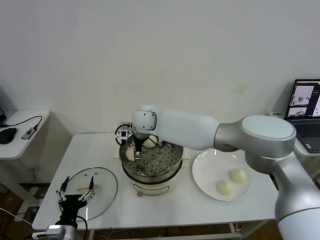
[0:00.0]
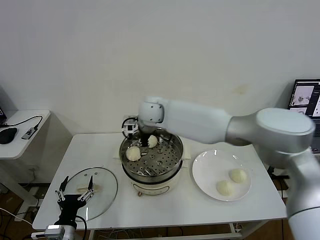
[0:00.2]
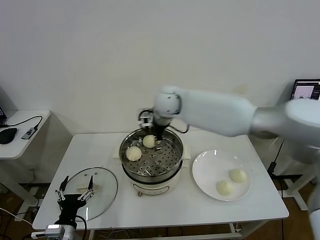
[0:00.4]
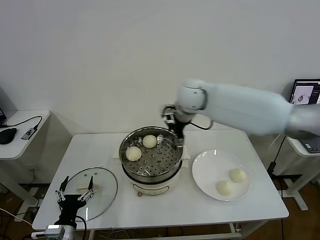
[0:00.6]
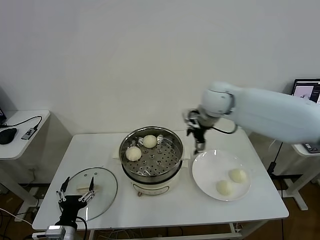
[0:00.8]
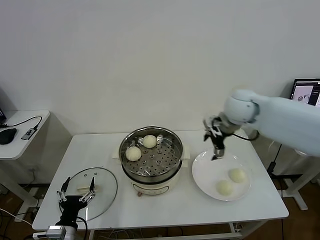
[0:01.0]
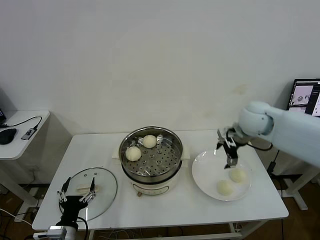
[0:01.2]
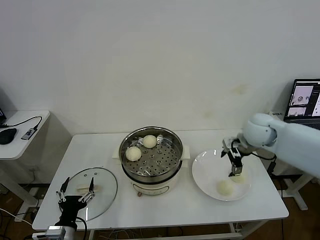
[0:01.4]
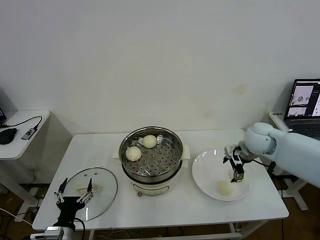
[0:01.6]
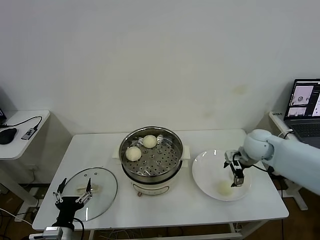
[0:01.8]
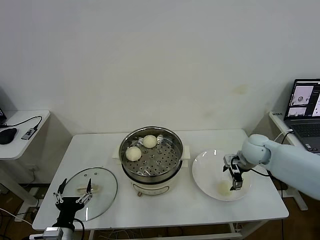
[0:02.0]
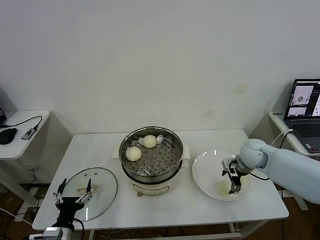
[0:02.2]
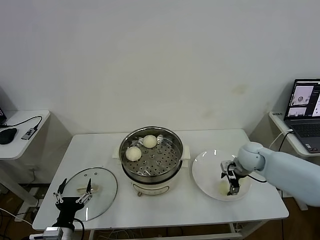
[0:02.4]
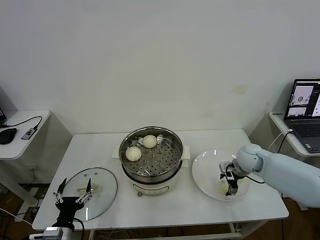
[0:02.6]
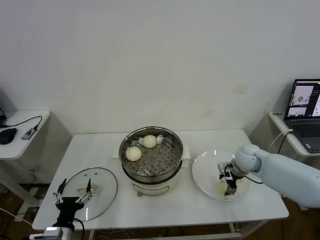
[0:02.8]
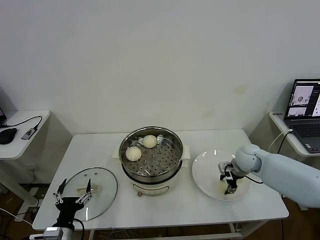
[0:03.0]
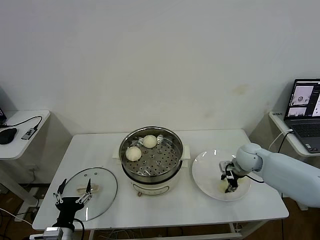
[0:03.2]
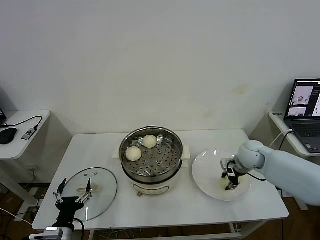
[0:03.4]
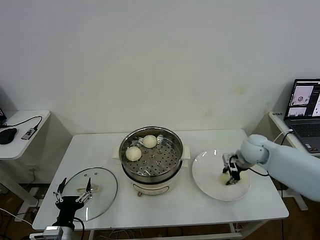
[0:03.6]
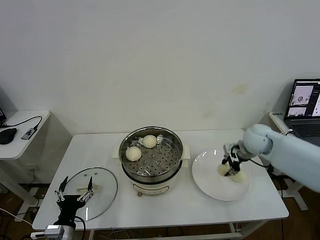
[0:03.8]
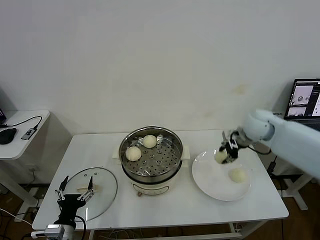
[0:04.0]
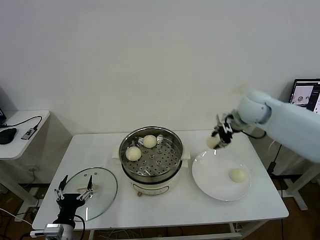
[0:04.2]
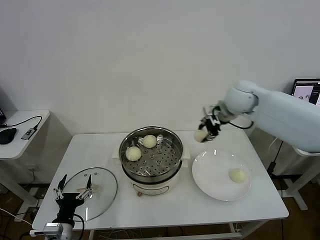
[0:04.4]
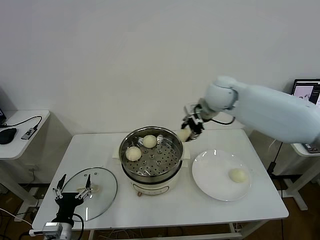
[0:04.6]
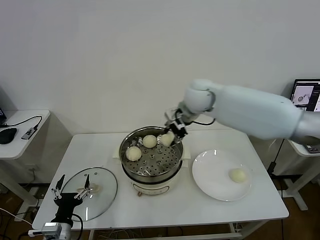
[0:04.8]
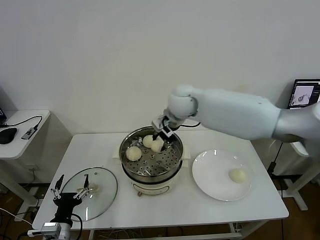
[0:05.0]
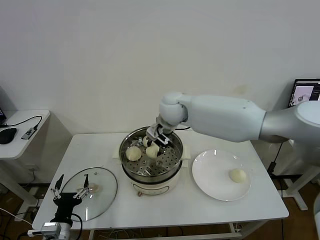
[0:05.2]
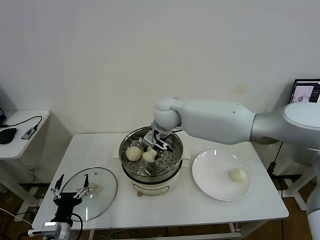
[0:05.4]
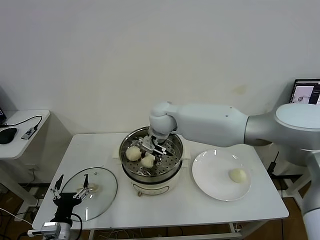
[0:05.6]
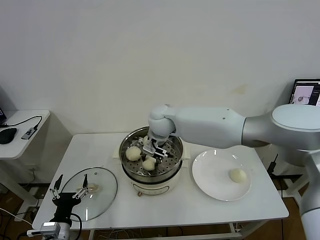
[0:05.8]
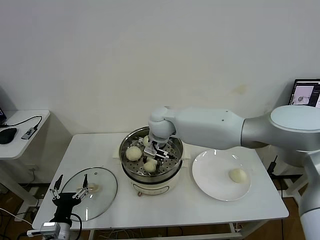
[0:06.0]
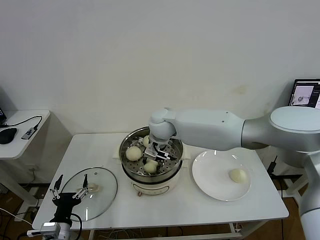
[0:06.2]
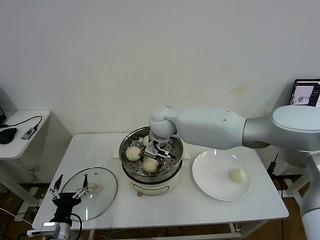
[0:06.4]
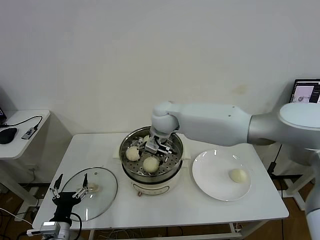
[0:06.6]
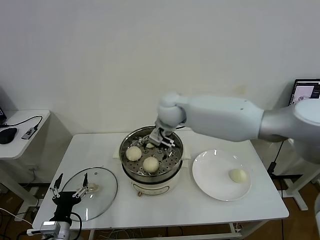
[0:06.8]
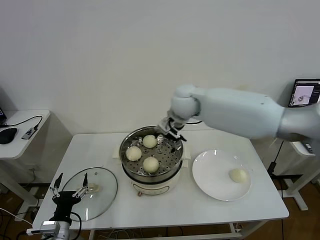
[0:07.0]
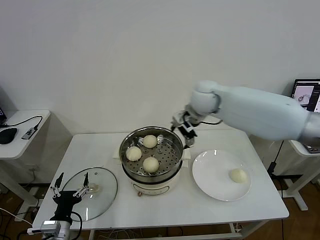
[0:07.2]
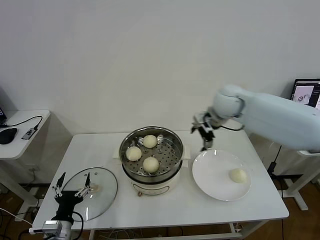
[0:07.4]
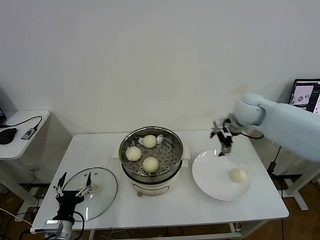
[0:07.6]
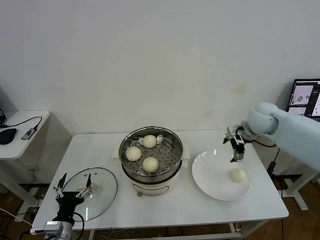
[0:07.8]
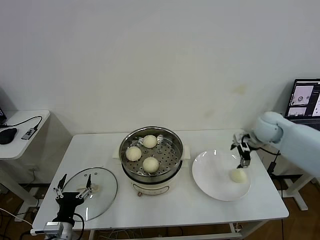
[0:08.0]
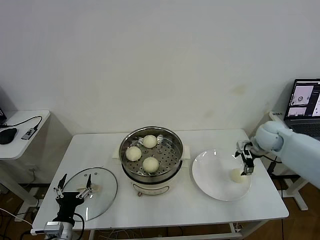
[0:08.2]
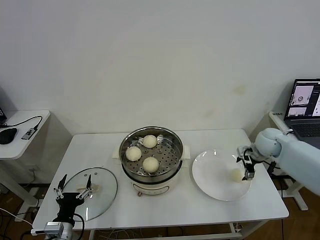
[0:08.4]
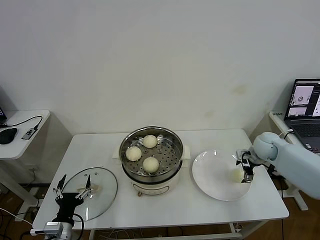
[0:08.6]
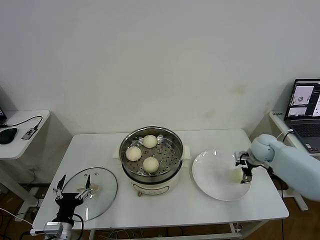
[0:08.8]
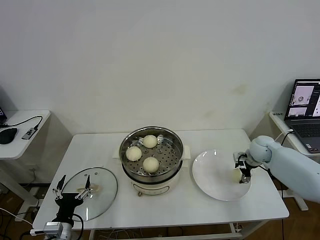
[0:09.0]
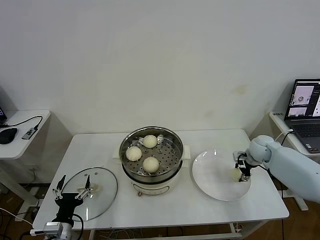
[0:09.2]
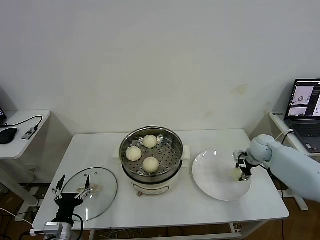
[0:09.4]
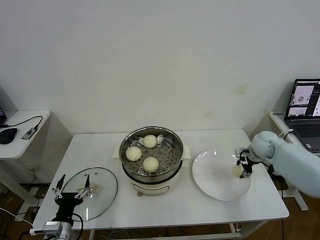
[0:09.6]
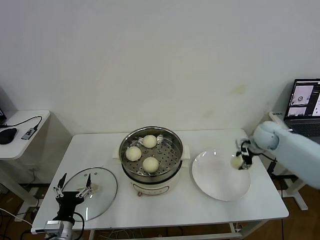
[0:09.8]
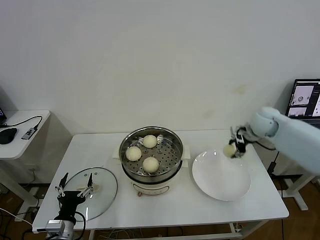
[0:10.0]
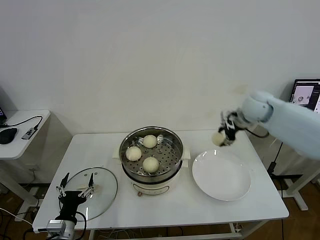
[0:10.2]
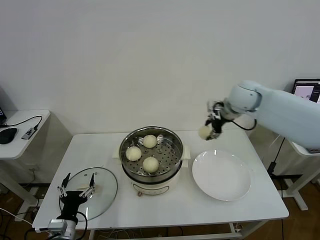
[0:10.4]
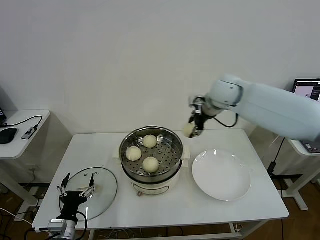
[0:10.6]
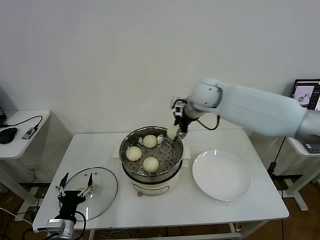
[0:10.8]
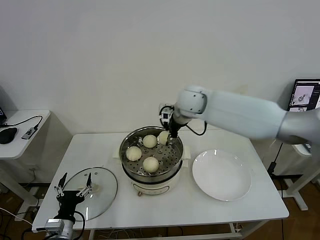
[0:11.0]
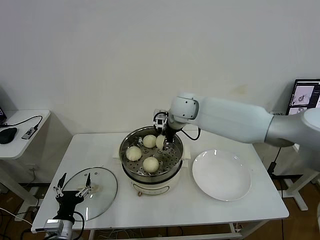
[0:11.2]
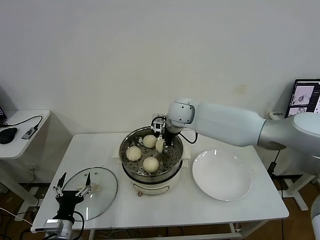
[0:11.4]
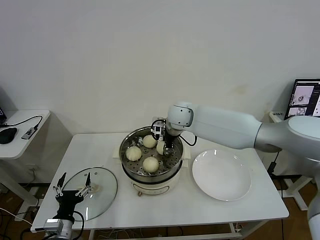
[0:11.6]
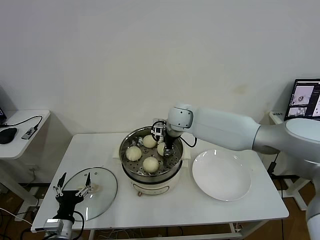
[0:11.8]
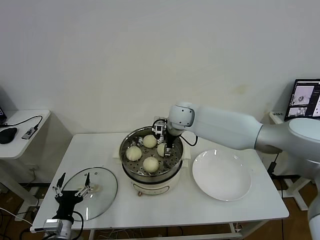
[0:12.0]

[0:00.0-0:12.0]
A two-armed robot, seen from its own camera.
Task of the whole recording: take steamed baozi put them in steamer then cover it.
Step, 0:00.4 to 0:03.2: Grasp the baozi in the plate with right gripper.
Step, 0:03.6 to 0:06.6: Place the baozi on the steamer with right gripper.
Step, 0:06.8 to 0:09.4: Grasp the baozi in the plate with right gripper.
0:00.0 to 0:01.6: The right gripper goes some 35 cm to the right.
0:01.6 to 0:03.0: The right gripper goes roughly 10 cm downward, and closes.
0:03.0 to 0:04.4: The right gripper moves upward and to the left, about 25 cm.
0:04.4 to 0:06.0: The right gripper is displaced to the left and downward by roughly 25 cm.
0:06.0 to 0:07.6: The right gripper moves to the right, approximately 30 cm, and opens.
0:07.6 to 0:09.0: The right gripper is displaced downward and to the right by some 20 cm.
0:09.0 to 0:10.4: The right gripper is displaced upward and to the left by about 25 cm, and closes.
0:10.4 to 0:12.0: The right gripper moves to the left and downward, roughly 20 cm, and opens up.

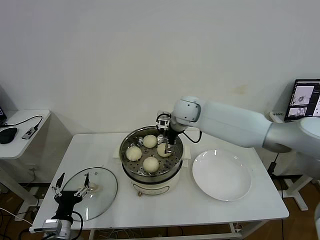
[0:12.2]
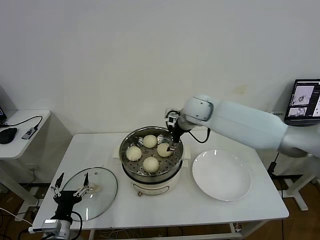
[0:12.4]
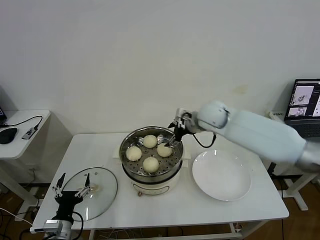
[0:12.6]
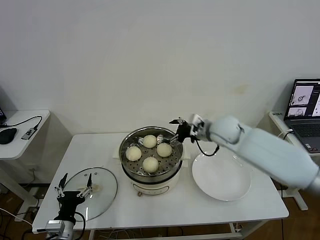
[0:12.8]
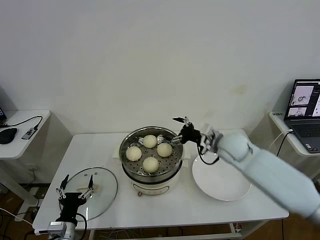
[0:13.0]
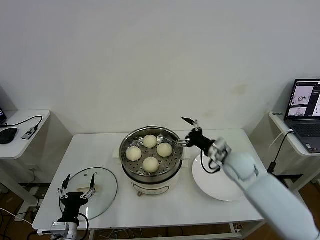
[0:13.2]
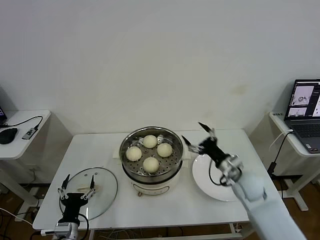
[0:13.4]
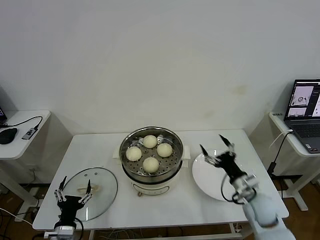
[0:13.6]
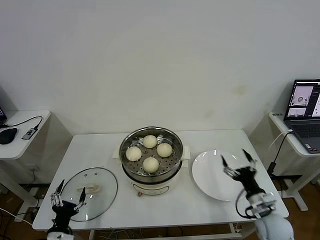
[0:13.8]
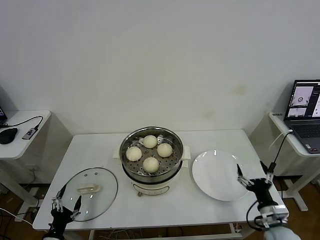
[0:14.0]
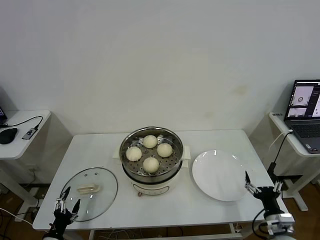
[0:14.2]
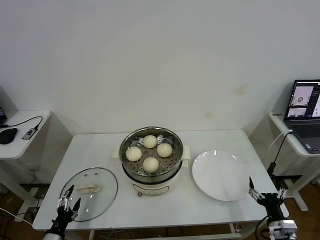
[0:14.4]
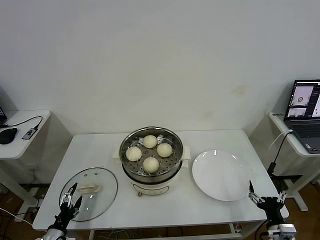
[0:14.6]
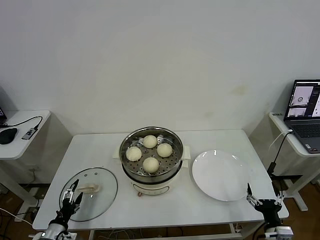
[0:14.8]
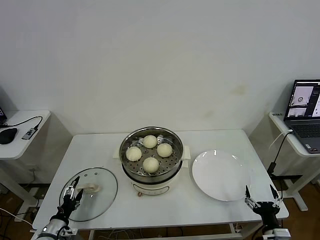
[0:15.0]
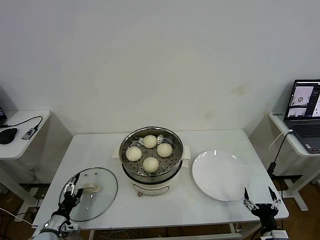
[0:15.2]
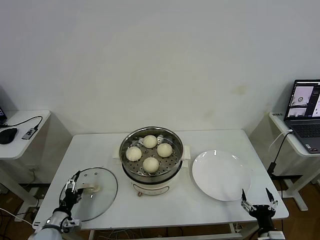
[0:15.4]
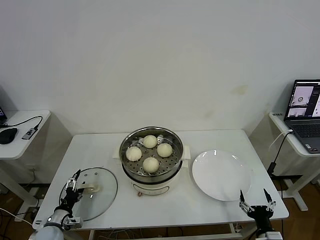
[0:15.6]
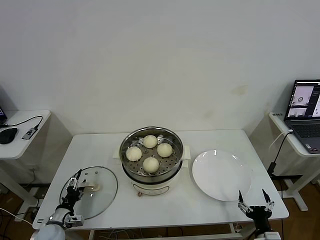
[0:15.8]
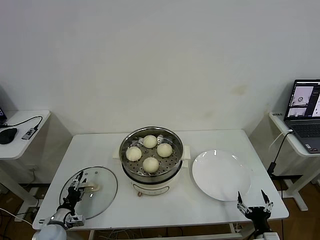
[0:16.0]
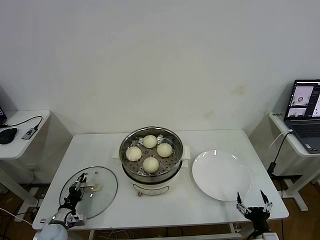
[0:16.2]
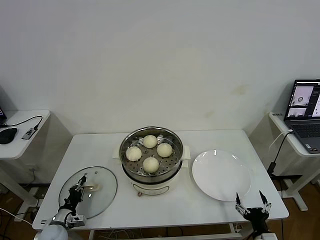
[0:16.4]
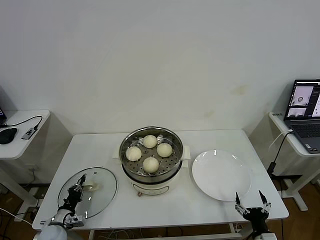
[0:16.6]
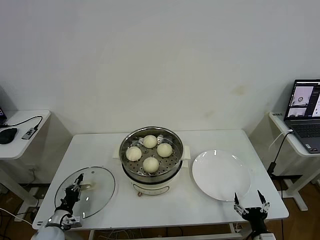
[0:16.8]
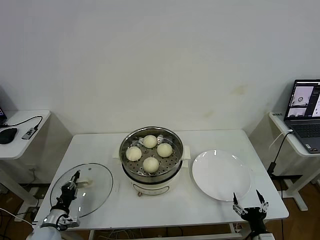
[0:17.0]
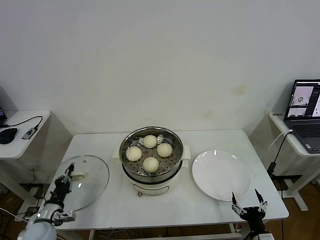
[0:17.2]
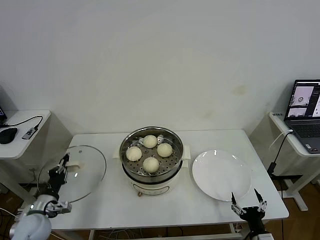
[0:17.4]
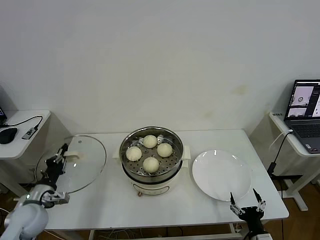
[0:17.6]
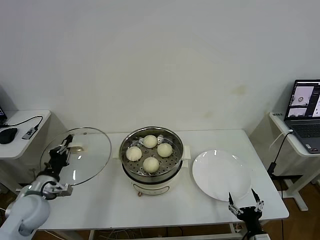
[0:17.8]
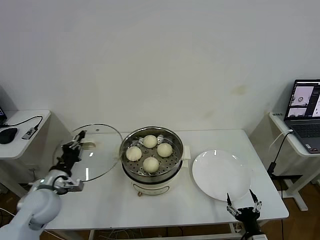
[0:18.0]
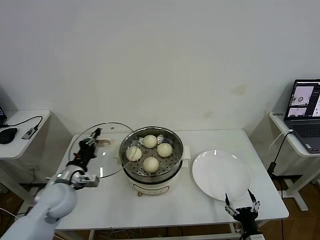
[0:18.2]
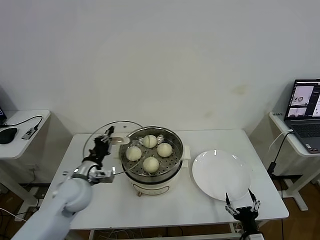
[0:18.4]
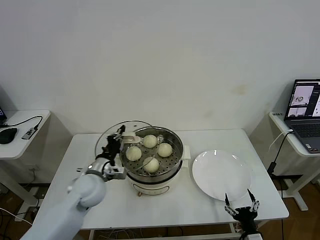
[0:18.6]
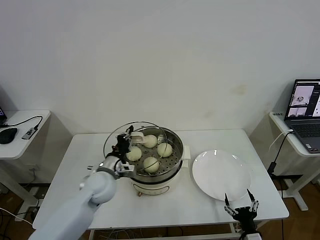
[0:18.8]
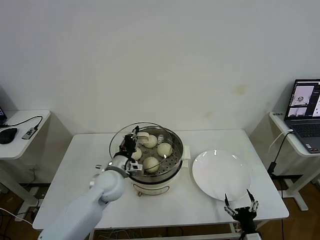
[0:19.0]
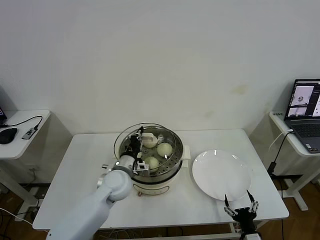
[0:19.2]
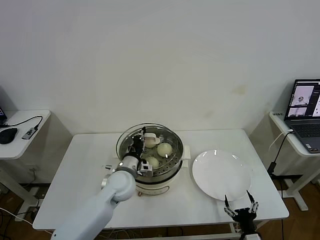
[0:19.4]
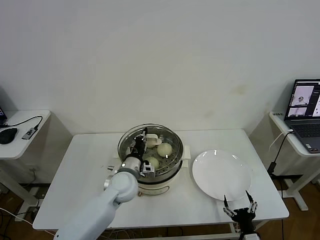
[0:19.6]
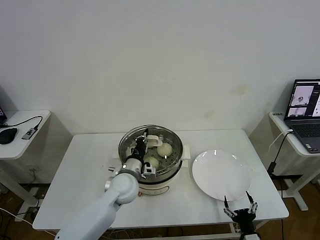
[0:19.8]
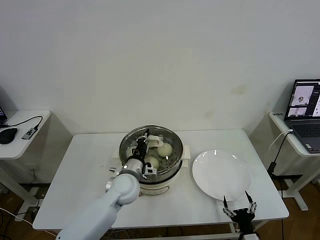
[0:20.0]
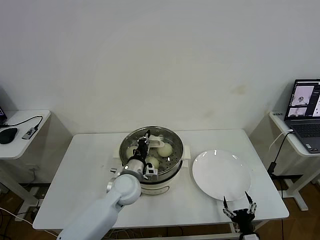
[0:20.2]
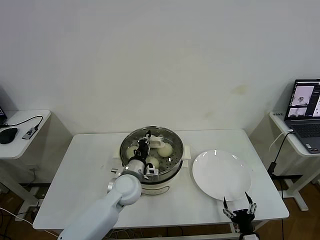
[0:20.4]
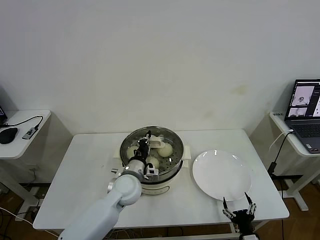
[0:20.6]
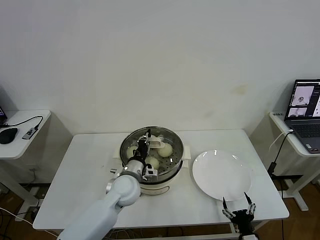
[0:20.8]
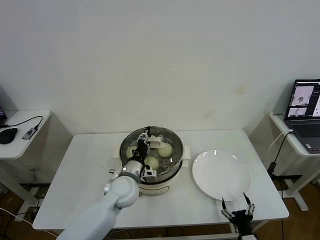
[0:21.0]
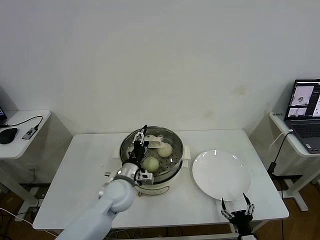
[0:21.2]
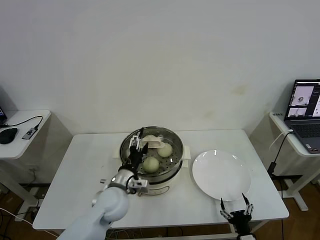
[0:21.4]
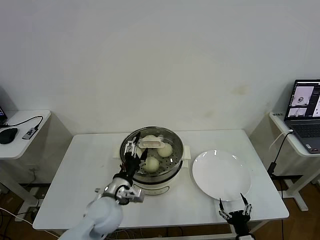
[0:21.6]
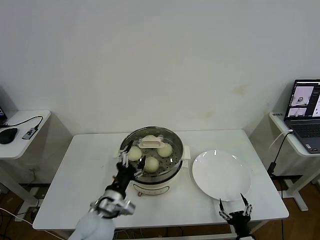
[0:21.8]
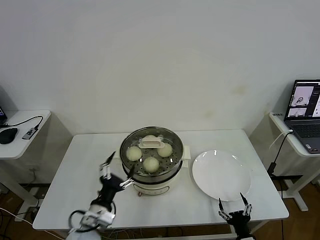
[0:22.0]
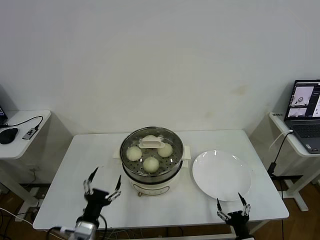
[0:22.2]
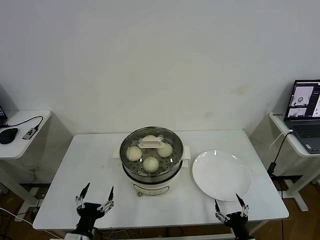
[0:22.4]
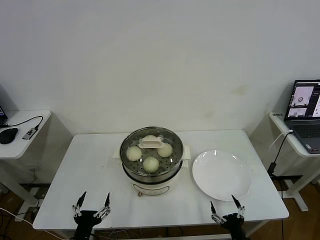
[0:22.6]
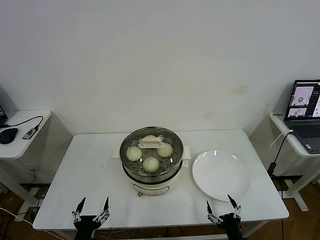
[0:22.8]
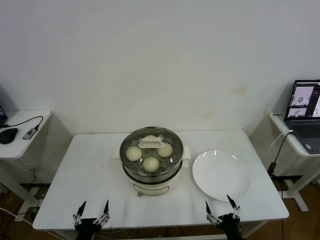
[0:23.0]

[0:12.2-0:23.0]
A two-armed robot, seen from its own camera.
Task of the whole recording: take steamed baozi put them in steamer then cover it.
Step, 0:12.4 to 0:16.6: Grasp the pot lid with left gripper.
Step, 0:16.8 to 0:21.6: Place the pot lid on the steamer with left gripper.
0:12.2 to 0:13.8: The right gripper goes about 50 cm backward, to the right and downward.
0:13.8 to 0:15.2: The left gripper is displaced to the left and forward by about 10 cm; the right gripper travels backward and downward by approximately 10 cm.
0:15.2 to 0:16.8: The left gripper closes.
0:16.8 to 0:18.4: The left gripper heads upward and to the right, covering approximately 25 cm.
0:18.4 to 0:20.0: The left gripper shifts about 15 cm to the right.
0:20.0 to 0:21.4: The left gripper opens its fingers.
0:21.4 to 0:23.0: The right gripper ends up some 5 cm from where it was. The left gripper shifts approximately 25 cm backward, to the left and downward.
